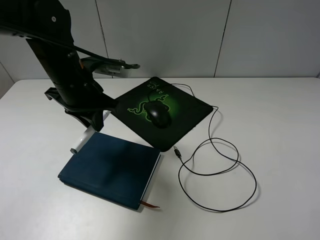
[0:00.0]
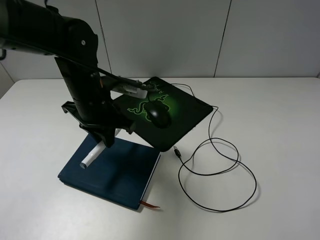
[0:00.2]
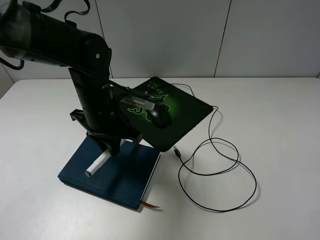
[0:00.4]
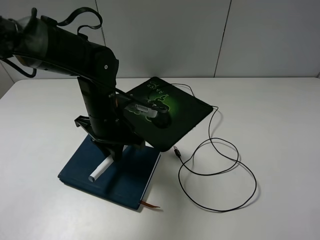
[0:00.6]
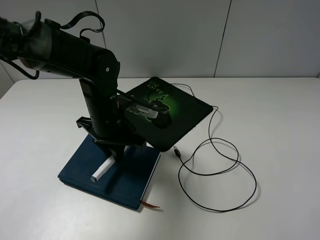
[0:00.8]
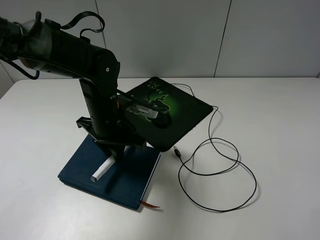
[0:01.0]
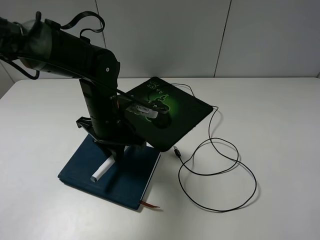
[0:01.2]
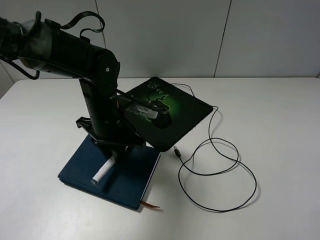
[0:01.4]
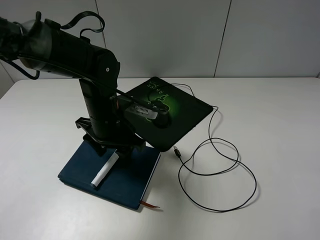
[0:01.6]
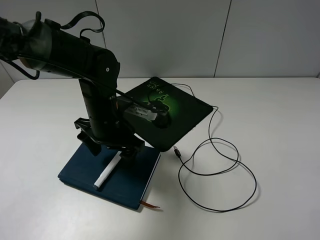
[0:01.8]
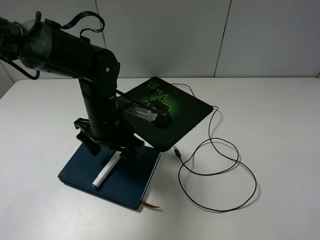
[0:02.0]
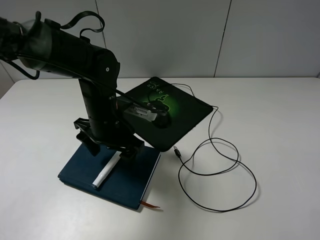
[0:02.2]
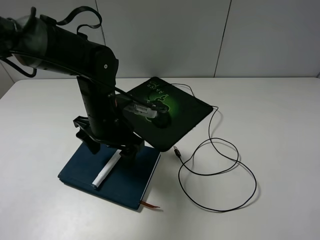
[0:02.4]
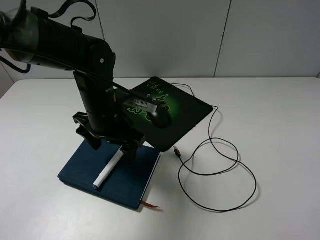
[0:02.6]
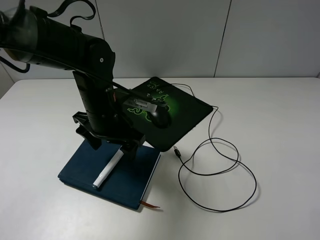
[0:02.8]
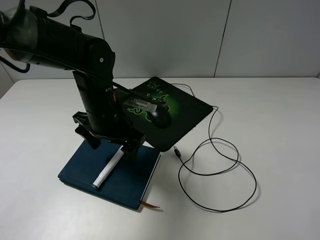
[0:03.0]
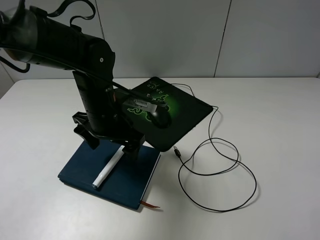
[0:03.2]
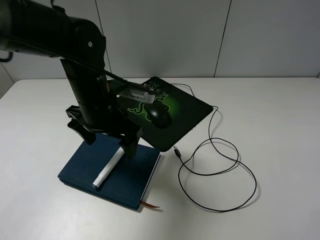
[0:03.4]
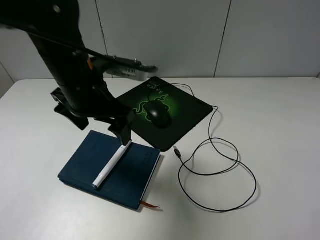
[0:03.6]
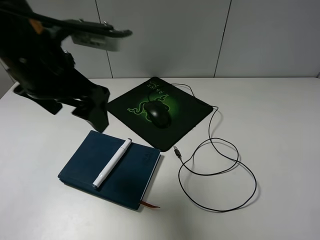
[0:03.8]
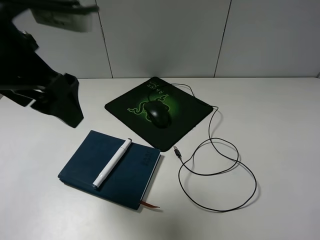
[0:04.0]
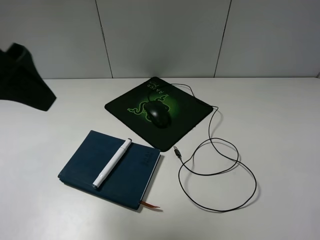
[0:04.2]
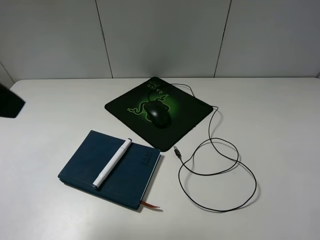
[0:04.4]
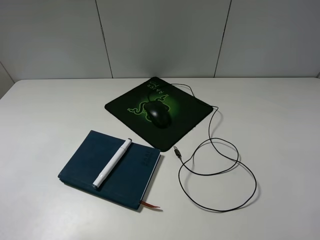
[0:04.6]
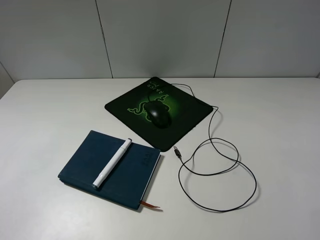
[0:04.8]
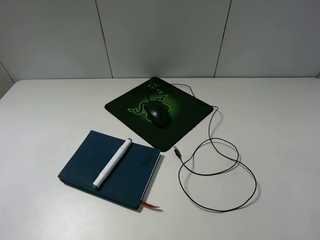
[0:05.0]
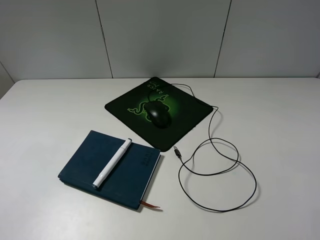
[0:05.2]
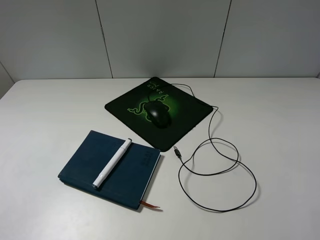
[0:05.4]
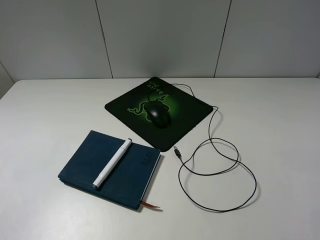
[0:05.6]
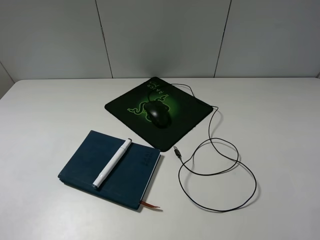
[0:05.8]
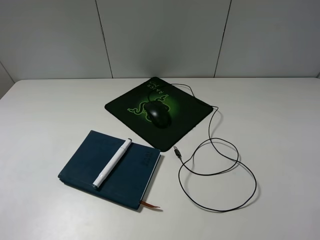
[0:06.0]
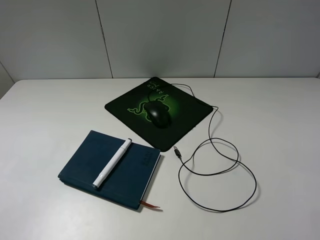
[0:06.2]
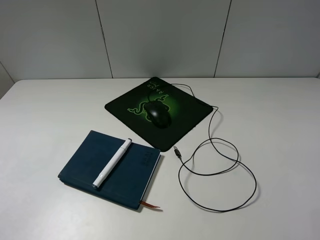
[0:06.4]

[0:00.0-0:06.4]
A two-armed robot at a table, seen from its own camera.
0:00.0 to 0:01.6: The left gripper heads downward, covering about 5 cm, and opens up.
0:01.6 to 0:03.2: The left gripper opens up.
0:03.2 to 0:04.8: The left gripper moves backward, upward and to the left, some 35 cm.
